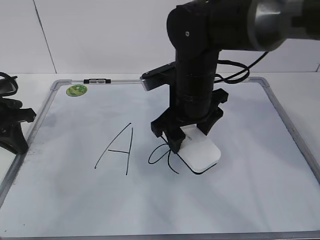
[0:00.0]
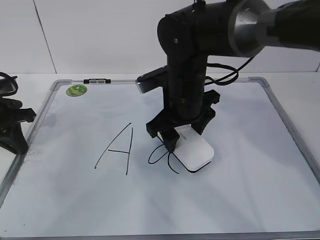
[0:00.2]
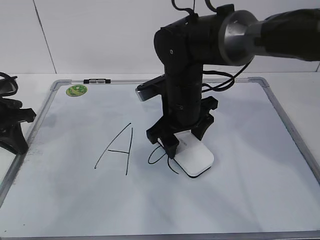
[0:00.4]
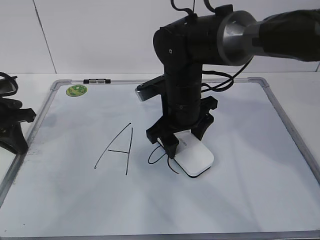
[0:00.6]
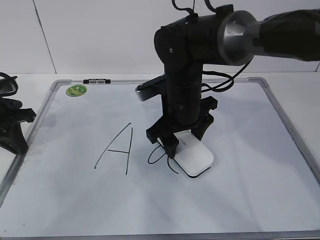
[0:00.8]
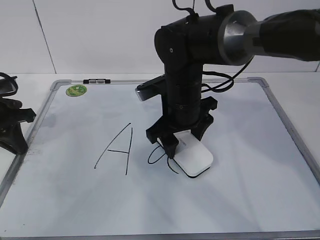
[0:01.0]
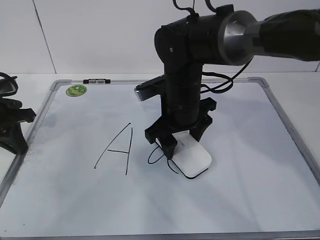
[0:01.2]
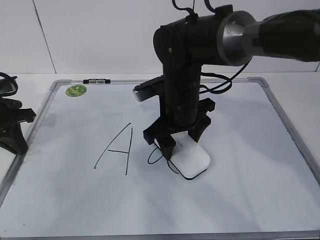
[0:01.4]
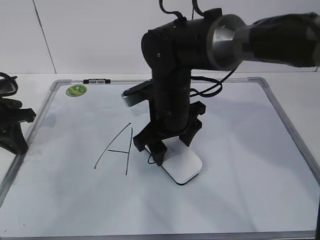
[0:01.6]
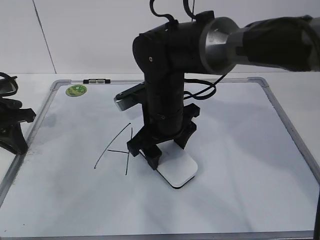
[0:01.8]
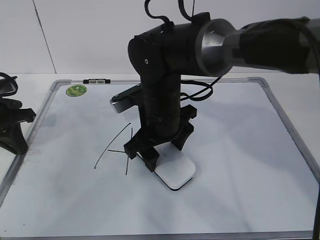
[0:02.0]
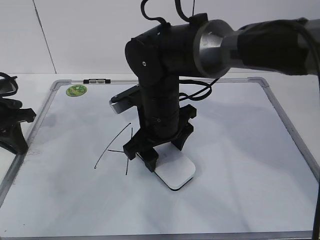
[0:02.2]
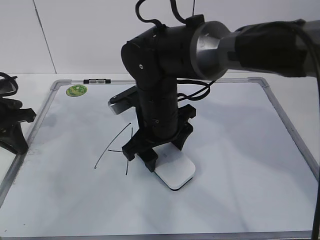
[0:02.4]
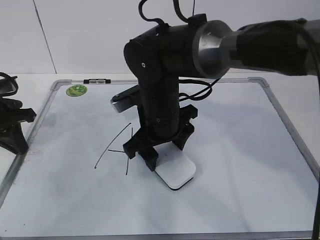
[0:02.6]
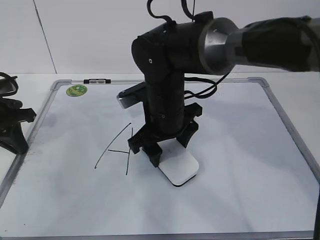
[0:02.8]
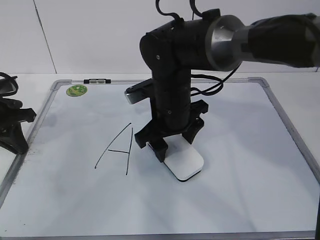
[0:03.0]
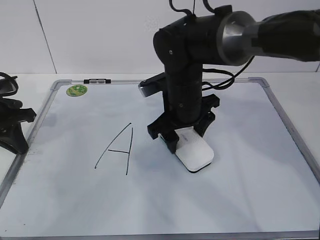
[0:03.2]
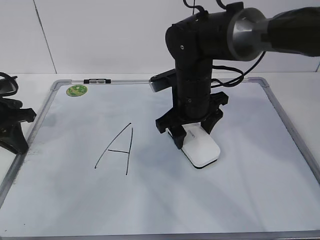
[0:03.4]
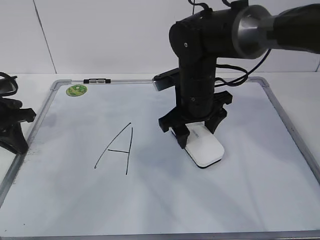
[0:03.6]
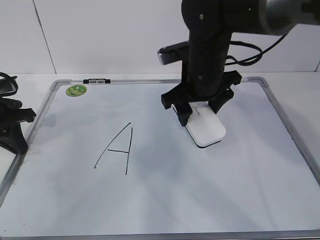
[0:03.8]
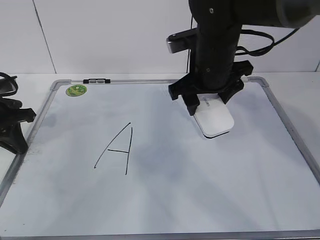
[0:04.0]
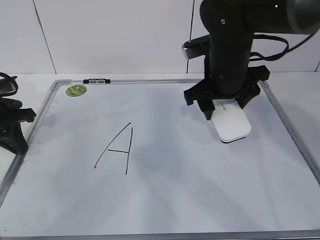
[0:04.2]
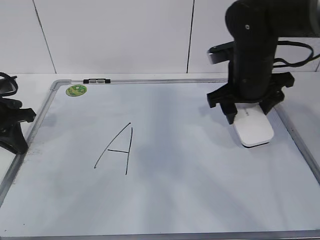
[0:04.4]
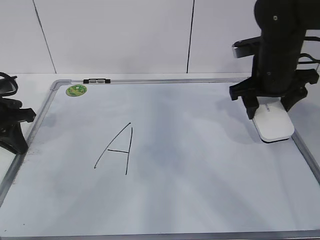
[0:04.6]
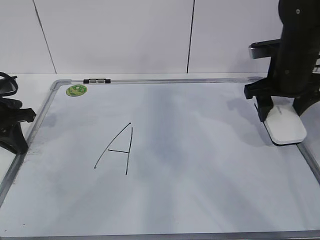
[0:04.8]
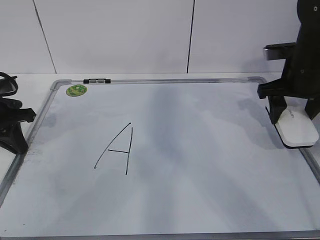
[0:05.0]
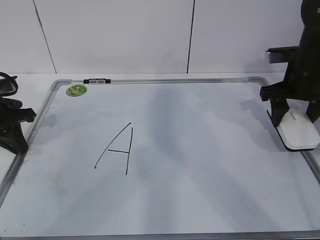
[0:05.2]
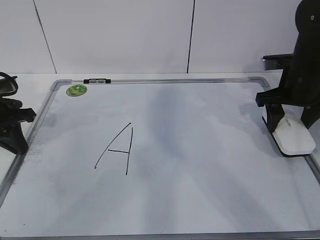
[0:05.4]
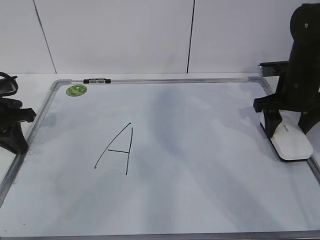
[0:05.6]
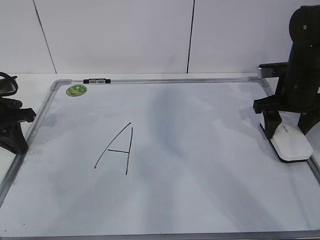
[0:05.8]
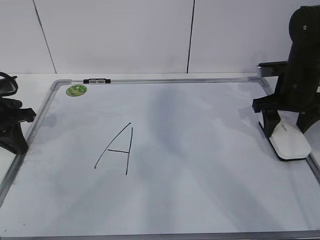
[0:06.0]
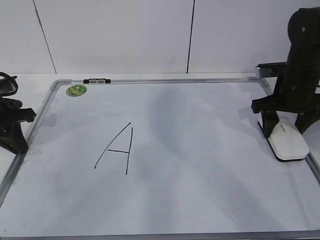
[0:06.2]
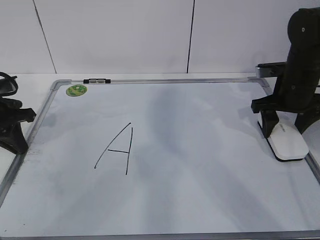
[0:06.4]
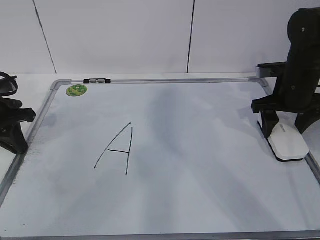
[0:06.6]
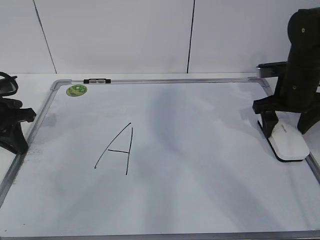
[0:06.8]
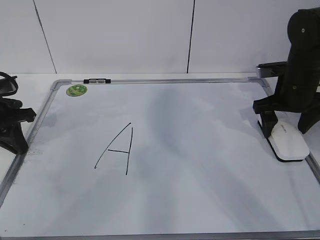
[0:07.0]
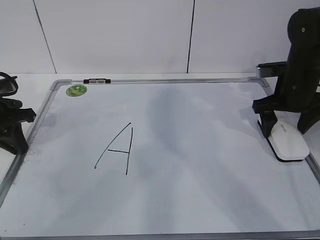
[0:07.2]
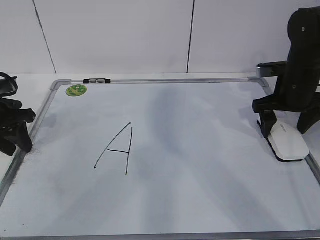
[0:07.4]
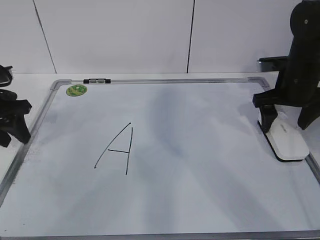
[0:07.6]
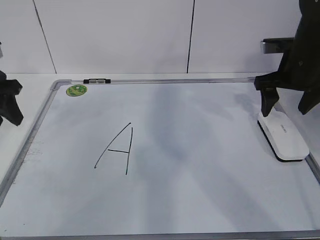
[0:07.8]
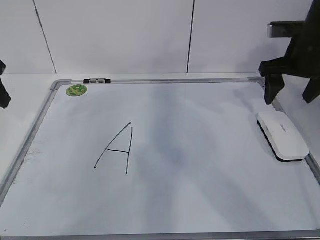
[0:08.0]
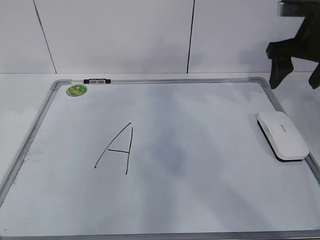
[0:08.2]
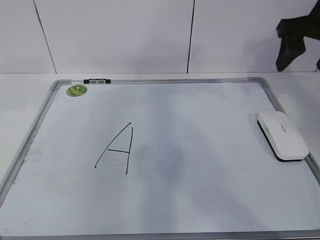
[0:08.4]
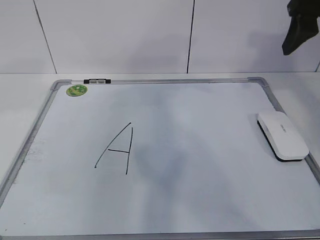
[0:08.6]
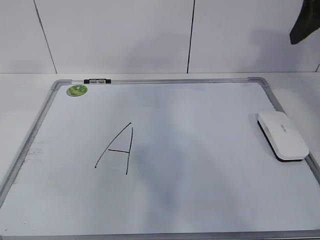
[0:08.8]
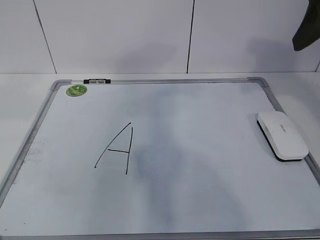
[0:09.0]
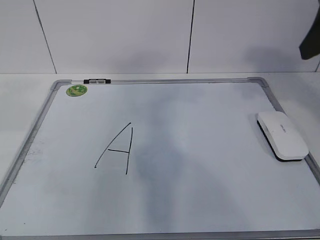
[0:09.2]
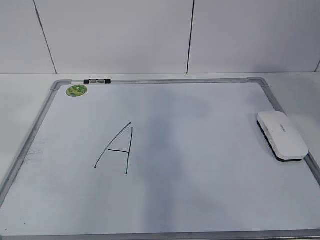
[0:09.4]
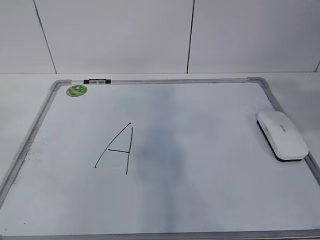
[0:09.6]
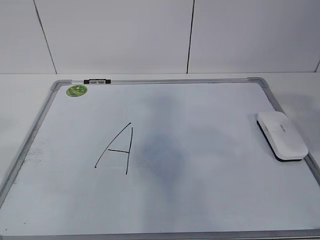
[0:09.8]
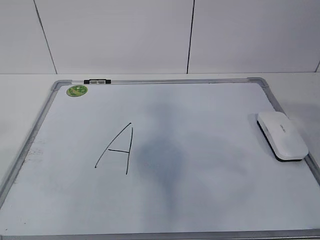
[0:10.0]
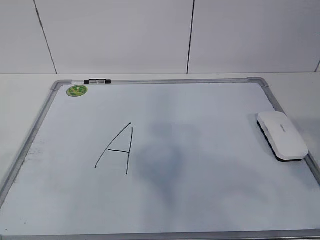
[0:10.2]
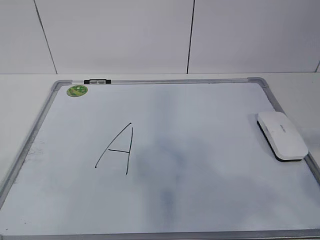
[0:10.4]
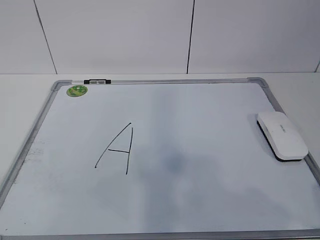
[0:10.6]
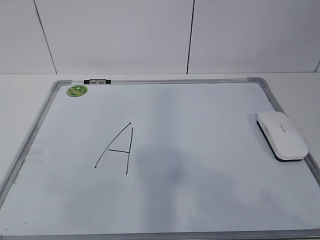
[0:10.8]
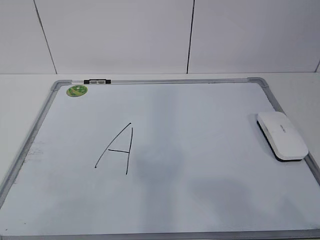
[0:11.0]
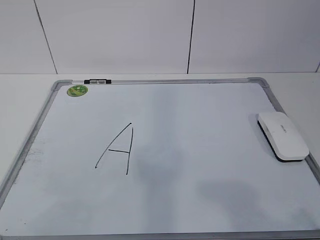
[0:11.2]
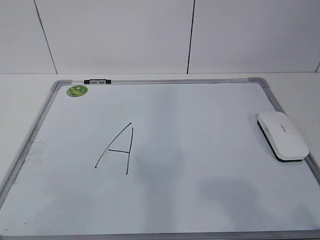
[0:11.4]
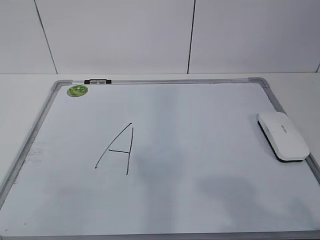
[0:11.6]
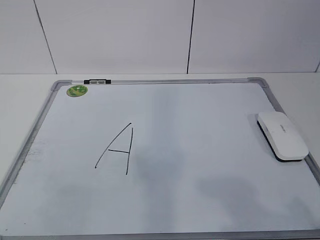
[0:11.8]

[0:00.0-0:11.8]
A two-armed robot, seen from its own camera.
Task of the whole recording: pick up the eraser on the blackboard and erase the letter "a".
Step, 0:01.0 to 0:03.4: Put down the eraser with your right hand.
0:00.0 to 0:03.0: The grippers stay close to where they were, moving slightly.
0:03.0 to 0:04.4: The right gripper moves to the right, about 15 cm.
0:04.4 to 0:06.0: The right gripper shifts about 10 cm to the right.
0:06.0 to 0:07.4: The right gripper opens up; the left gripper opens up.
0:07.4 to 0:08.8: Both grippers move upward and backward, roughly 25 cm. The right gripper closes its fingers.
0:08.8 to 0:10.4: The right gripper goes roughly 30 cm backward.

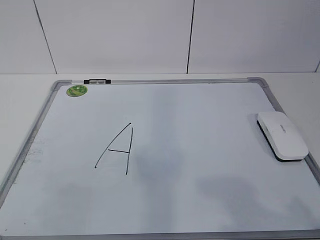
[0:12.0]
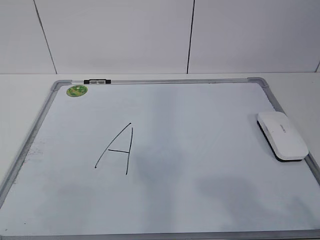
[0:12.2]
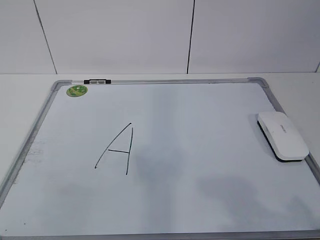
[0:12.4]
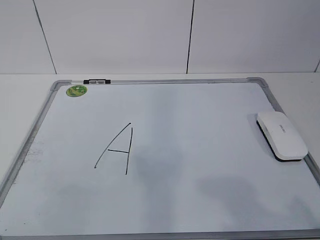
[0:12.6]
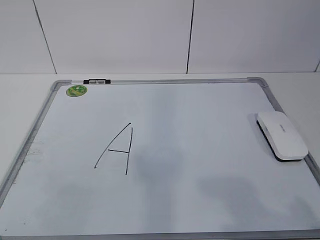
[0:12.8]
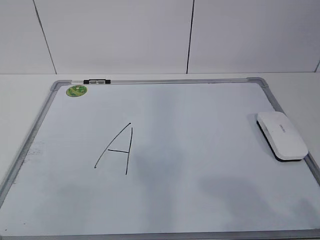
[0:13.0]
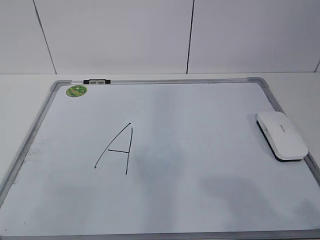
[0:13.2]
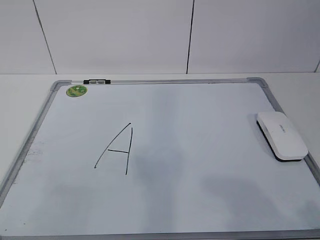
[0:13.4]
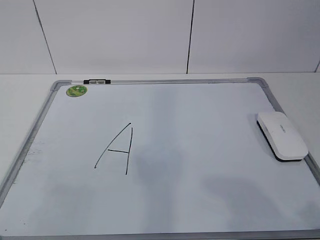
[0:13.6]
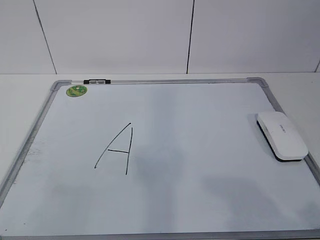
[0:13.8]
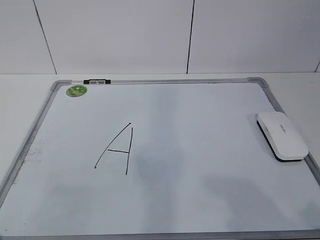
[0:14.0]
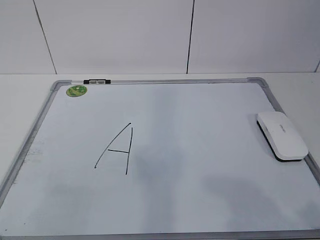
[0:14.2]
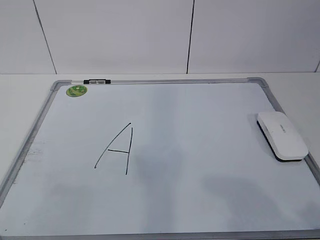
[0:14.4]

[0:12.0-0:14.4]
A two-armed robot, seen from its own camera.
Task of the whole recording: pick up the eraser on the blackboard and erase the letter "a".
0:13.2 to 0:14.4: Both grippers stay put.
